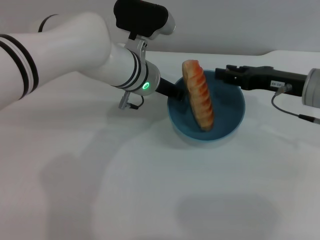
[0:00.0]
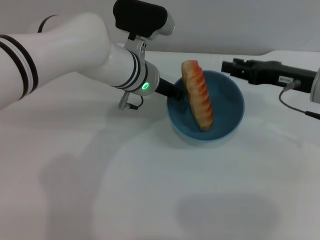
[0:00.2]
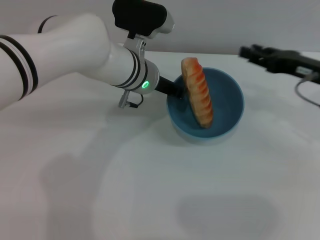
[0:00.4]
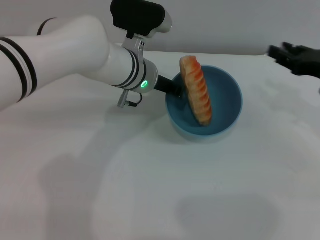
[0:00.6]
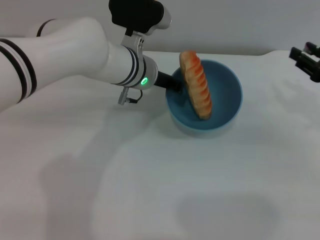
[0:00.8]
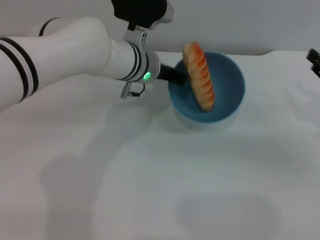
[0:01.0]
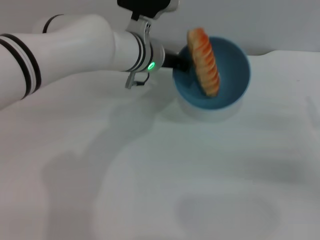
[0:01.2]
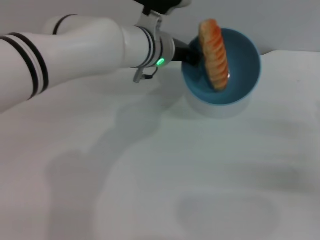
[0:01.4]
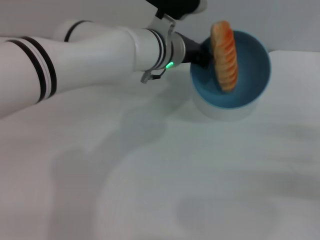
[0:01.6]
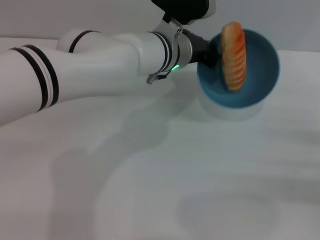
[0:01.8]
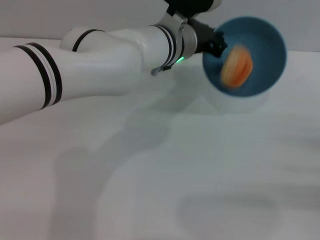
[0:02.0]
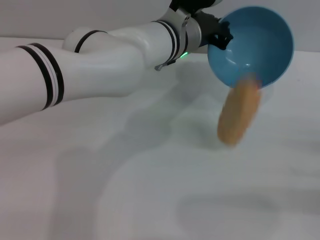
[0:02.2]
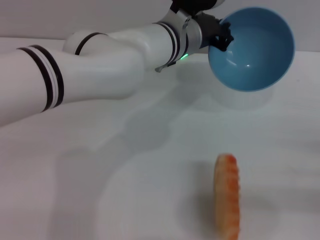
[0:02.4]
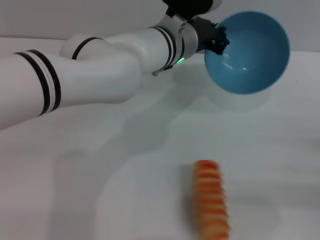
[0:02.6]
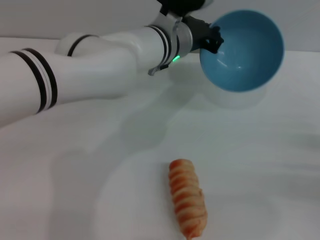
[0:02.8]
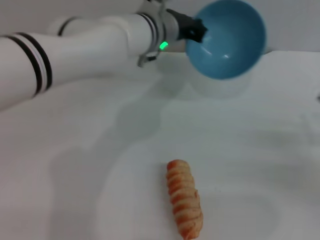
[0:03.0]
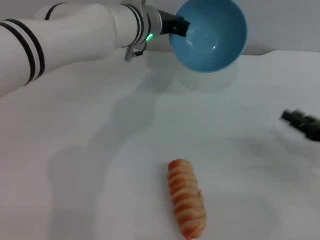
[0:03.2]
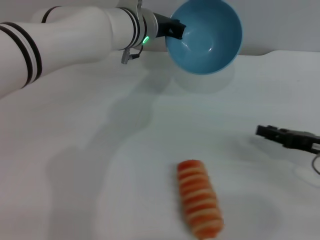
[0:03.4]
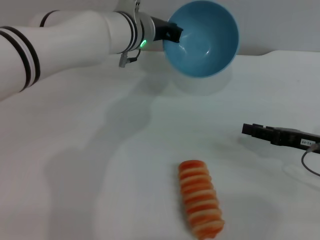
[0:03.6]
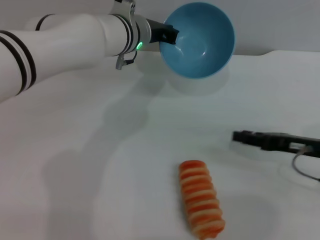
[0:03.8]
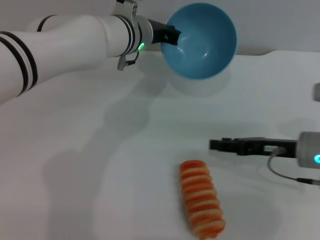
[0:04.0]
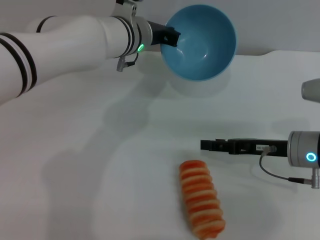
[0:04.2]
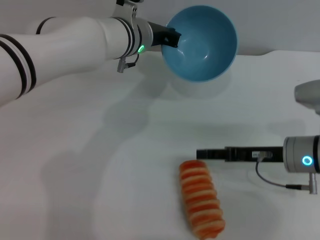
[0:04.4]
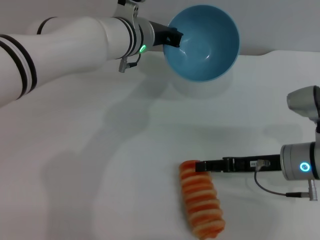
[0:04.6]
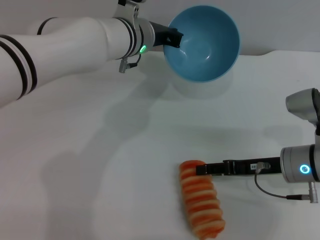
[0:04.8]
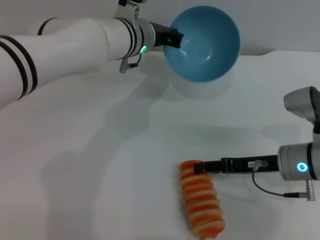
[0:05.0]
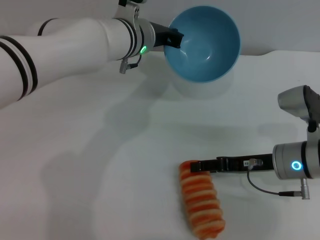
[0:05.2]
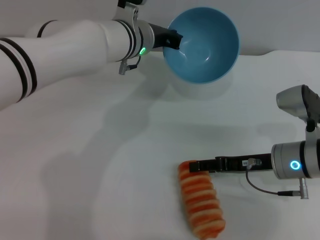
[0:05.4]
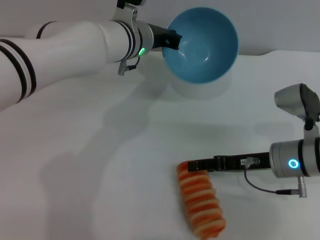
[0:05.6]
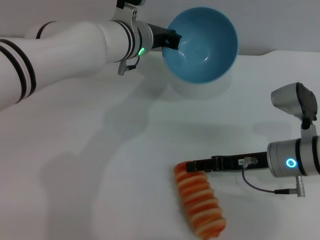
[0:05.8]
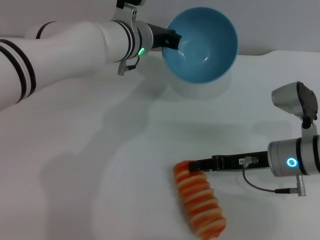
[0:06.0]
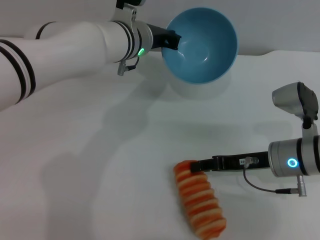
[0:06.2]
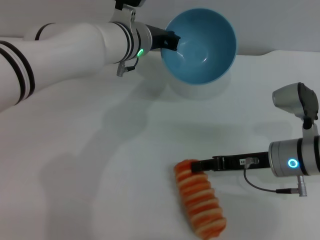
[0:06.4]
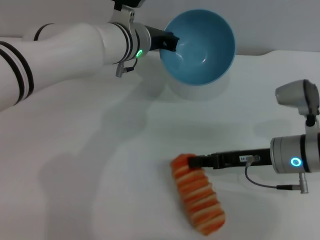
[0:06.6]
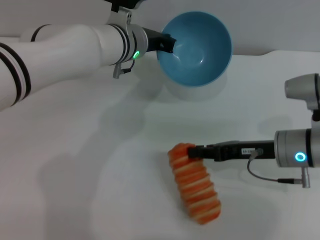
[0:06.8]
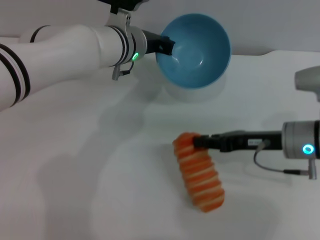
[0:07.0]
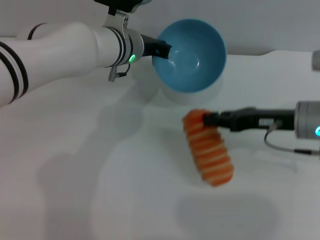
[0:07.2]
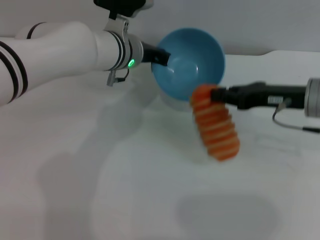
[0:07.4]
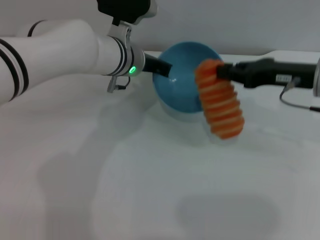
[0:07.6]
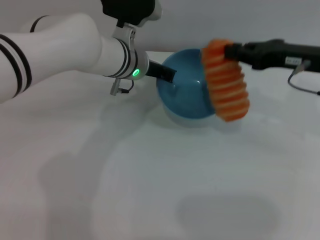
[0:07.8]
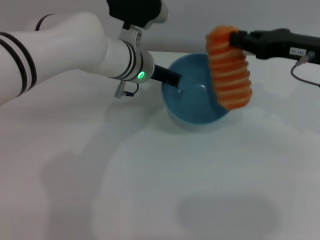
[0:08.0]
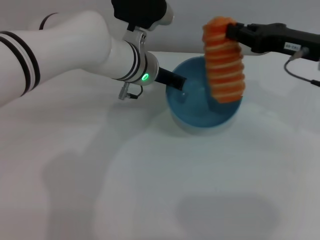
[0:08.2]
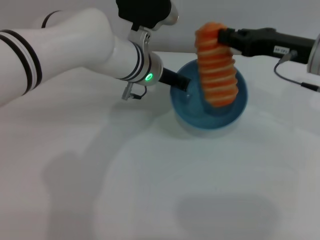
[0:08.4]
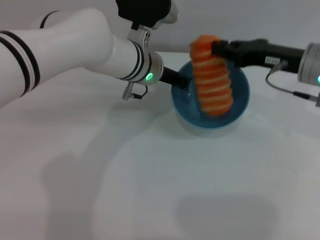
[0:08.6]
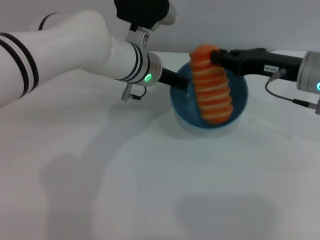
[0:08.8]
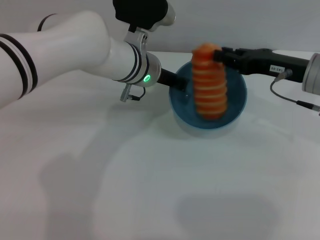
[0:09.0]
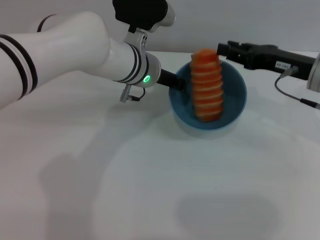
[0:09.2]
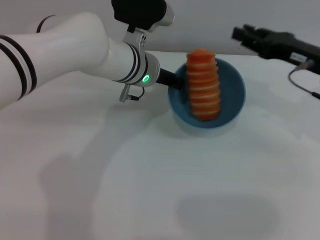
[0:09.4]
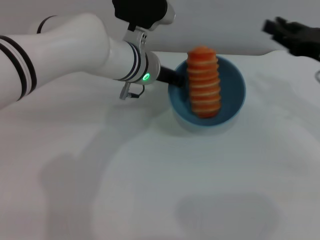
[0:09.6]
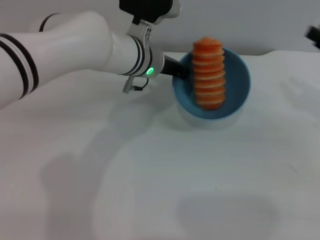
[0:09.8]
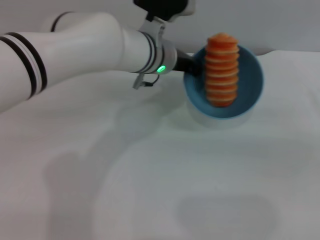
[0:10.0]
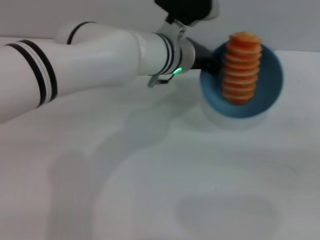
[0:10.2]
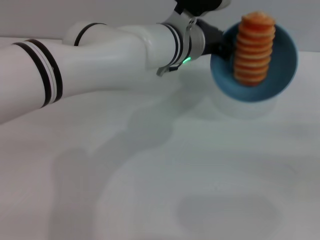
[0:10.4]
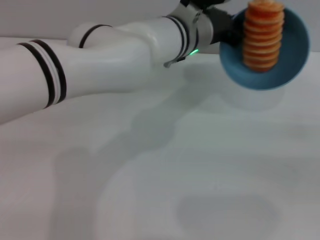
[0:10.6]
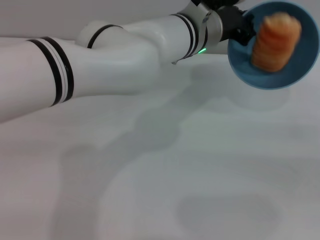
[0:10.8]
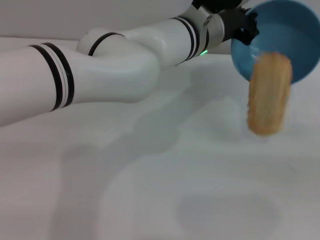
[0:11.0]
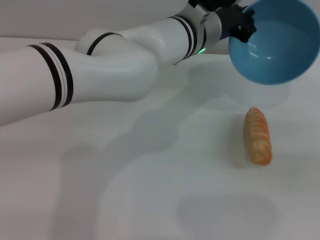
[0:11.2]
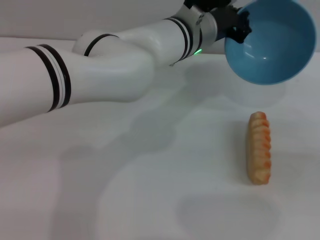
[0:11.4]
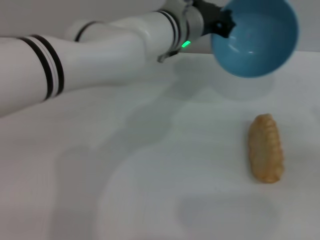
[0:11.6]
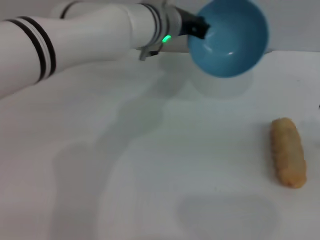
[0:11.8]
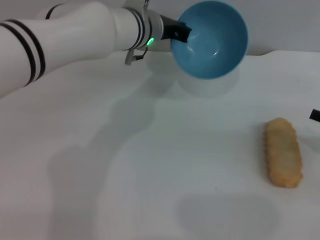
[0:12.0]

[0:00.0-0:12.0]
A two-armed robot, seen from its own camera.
Task of the whole recording: put the bread into the blue bowl and pour it out repeatedly.
Step, 0:00.2 to 0:04.2: Pour the bread out of the bowl.
Step, 0:04.4 to 0:07.6: Pick up the bread with the right gripper.
Step, 0:07.8 to 0:09.4: Place the bread into the bowl.
0:00.0 to 0:01.6: The right gripper moves to the right, backward and downward, approximately 20 cm.
0:03.0 to 0:04.4: The right gripper heads to the left, covering approximately 10 cm, and opens.
0:04.4 to 0:06.0: The grippers make only small movements.
0:06.0 to 0:07.6: The right gripper travels upward by about 10 cm, and closes.
0:07.6 to 0:09.0: The grippers stay close to where they were, moving slightly.
0:09.0 to 0:10.4: The left gripper is displaced to the right by about 5 cm. Meanwhile the right gripper moves to the right and backward, approximately 20 cm.
0:10.4 to 0:12.0: The left gripper shifts some 5 cm to the left.

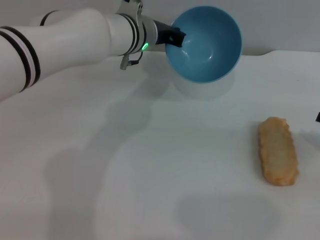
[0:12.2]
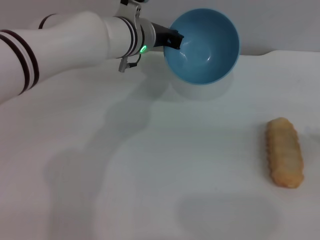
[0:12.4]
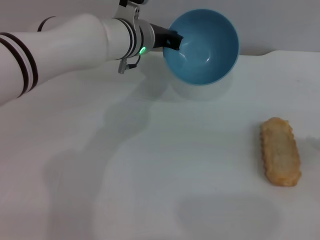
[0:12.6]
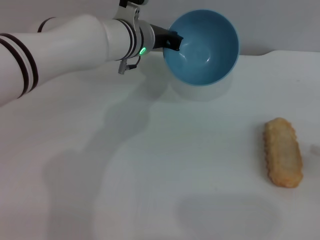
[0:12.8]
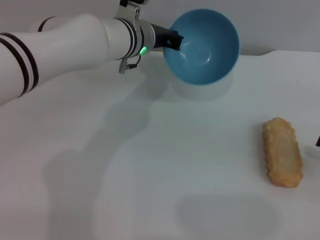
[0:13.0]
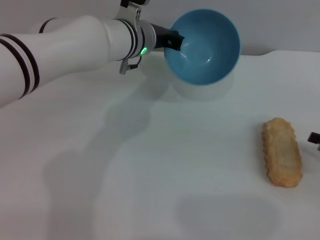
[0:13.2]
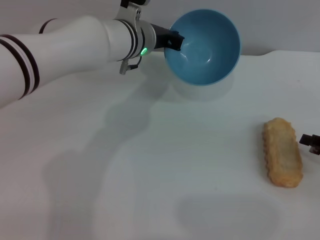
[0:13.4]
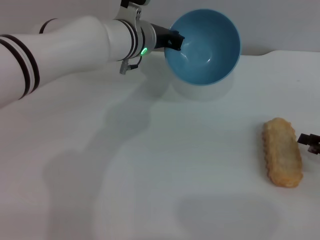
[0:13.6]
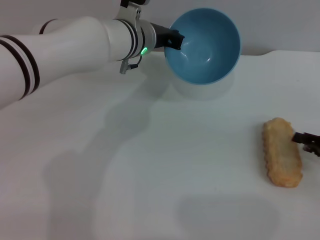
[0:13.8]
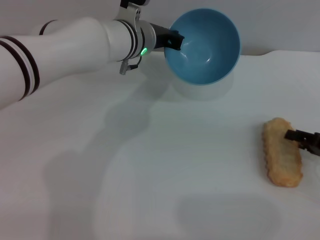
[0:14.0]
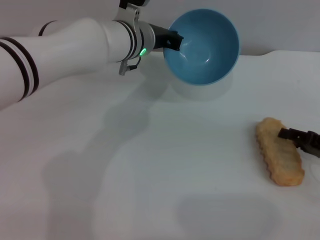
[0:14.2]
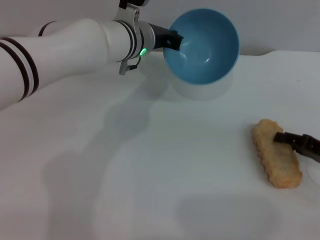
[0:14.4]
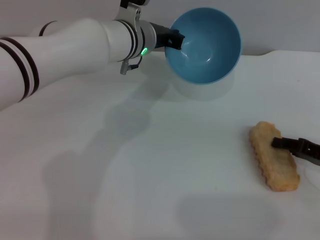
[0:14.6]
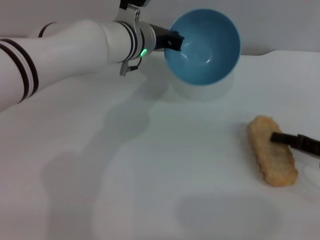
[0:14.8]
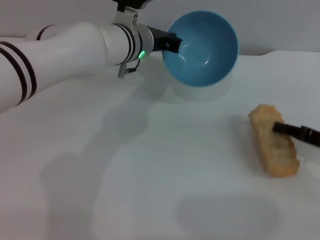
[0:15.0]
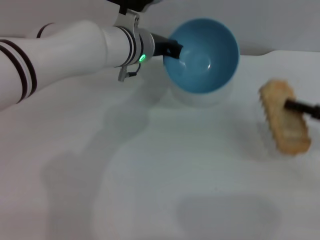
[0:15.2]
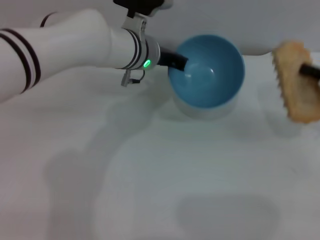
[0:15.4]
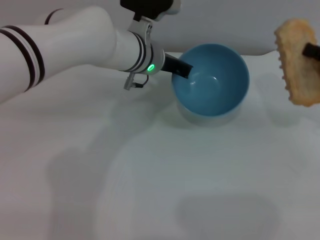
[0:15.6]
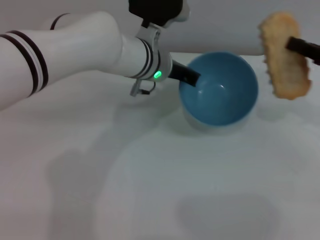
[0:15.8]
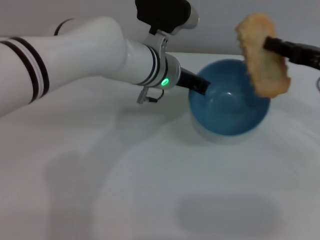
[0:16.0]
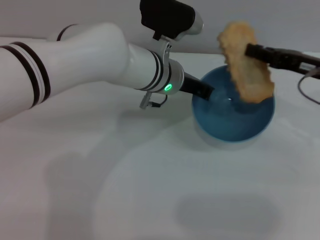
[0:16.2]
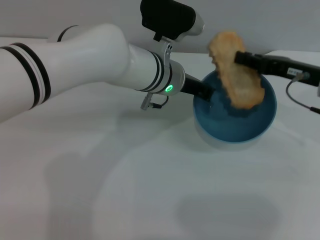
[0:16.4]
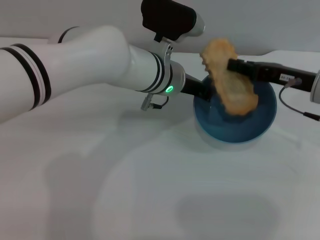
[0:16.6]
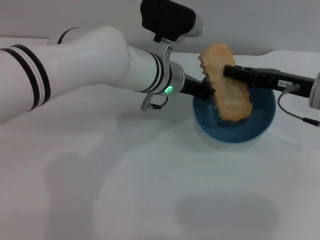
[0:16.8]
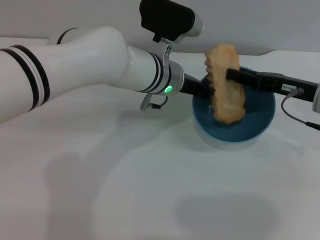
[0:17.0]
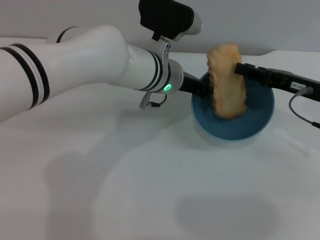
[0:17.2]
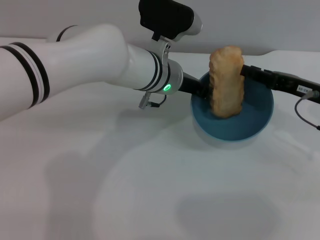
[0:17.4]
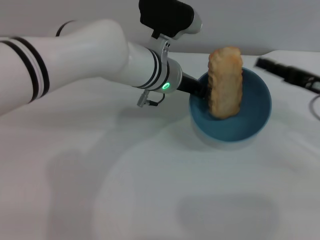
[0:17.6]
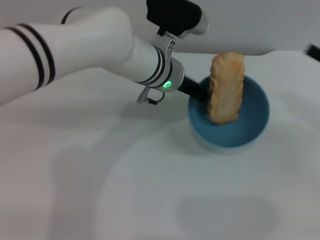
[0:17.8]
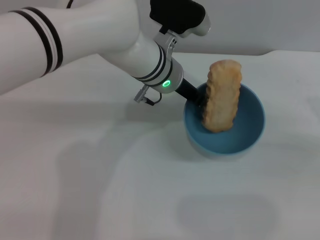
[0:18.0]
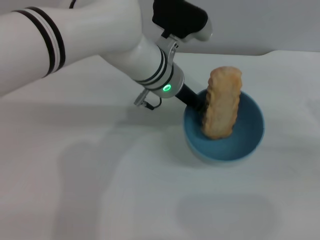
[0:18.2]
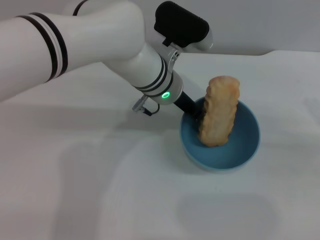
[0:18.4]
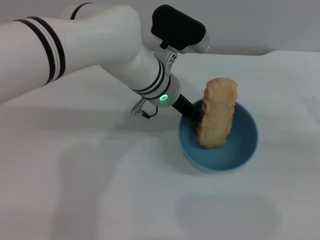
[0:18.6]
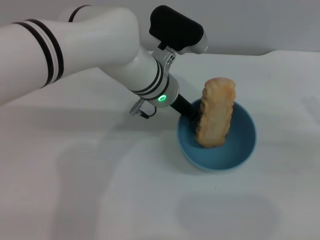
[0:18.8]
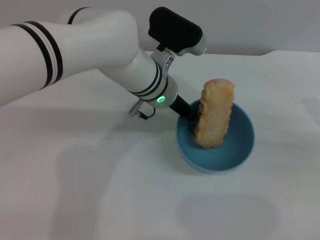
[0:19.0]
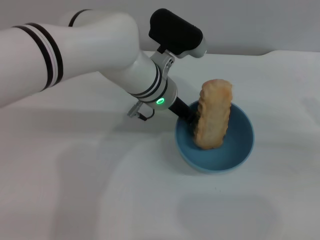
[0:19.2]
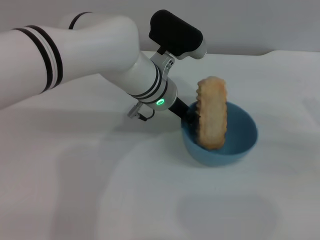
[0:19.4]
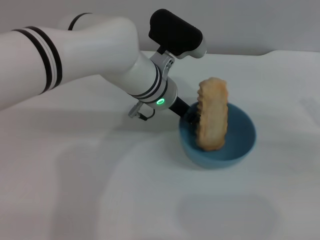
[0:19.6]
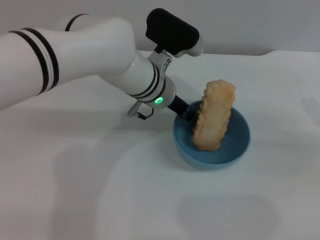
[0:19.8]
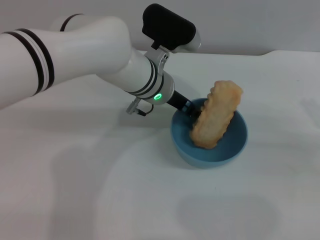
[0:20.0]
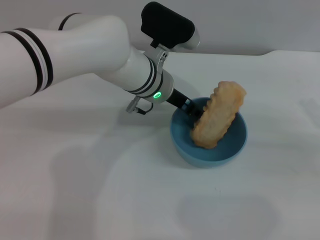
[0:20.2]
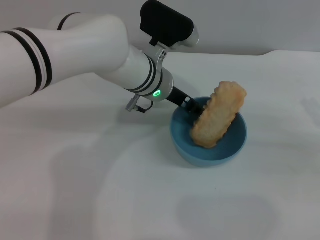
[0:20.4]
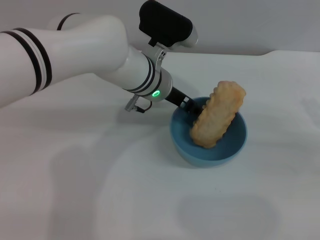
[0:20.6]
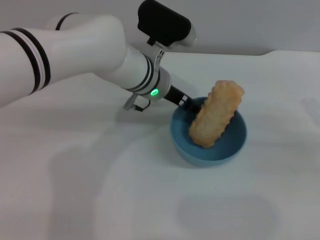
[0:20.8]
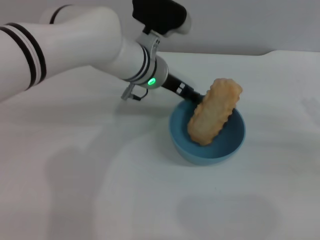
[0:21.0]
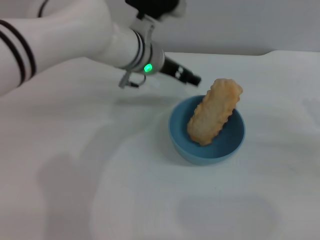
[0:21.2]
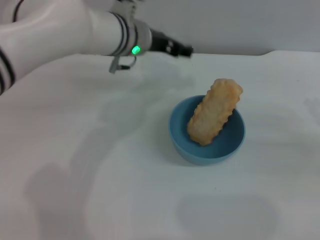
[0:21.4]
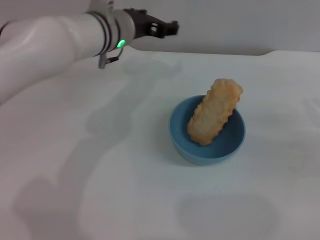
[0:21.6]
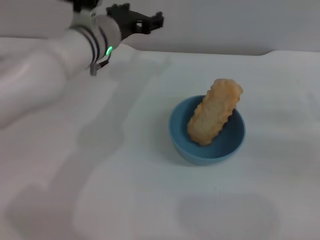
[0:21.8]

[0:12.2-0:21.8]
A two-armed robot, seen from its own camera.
Task of the whole recording: put the bread into the blue bowl and pour it out repeatedly.
Step, 0:12.2 to 0:15.4: Pick up the bread with the right gripper.
Step, 0:15.6 to 0:17.6: Place the bread into the bowl.
Step, 0:17.8 to 0:21.0: Place the bowl on the table.
0:12.2 to 0:13.8: The right gripper is displaced downward by about 5 cm.
0:13.8 to 0:15.4: The right gripper goes about 10 cm upward, and closes its fingers.
0:15.4 to 0:17.0: The right gripper moves to the left, about 10 cm.
0:17.0 to 0:18.6: The right gripper travels to the right and backward by roughly 15 cm.
0:18.6 to 0:20.2: The left gripper opens.
0:20.2 to 0:21.8: The left gripper goes roughly 10 cm to the left, and opens its fingers.
